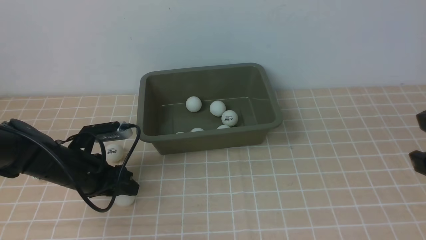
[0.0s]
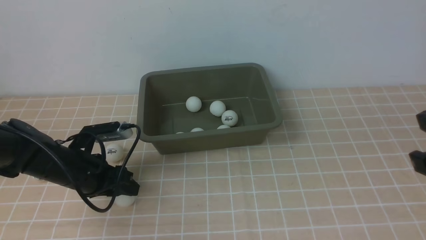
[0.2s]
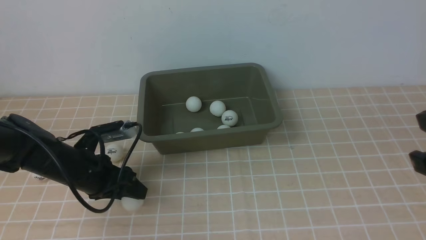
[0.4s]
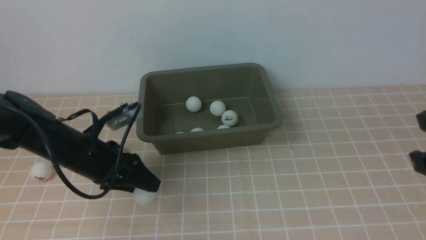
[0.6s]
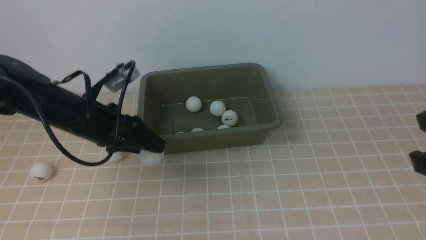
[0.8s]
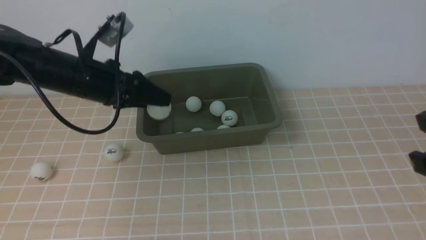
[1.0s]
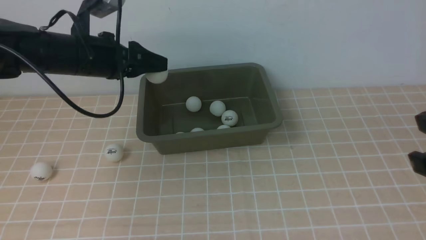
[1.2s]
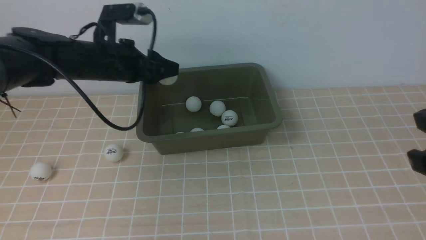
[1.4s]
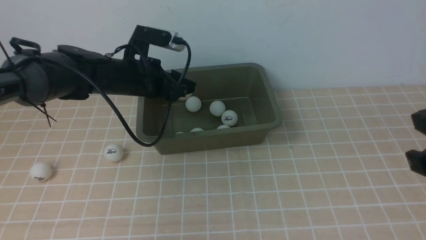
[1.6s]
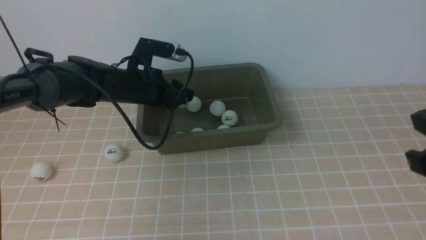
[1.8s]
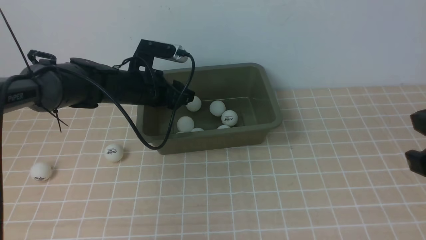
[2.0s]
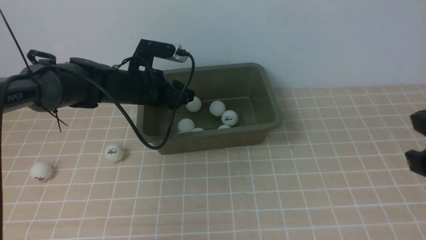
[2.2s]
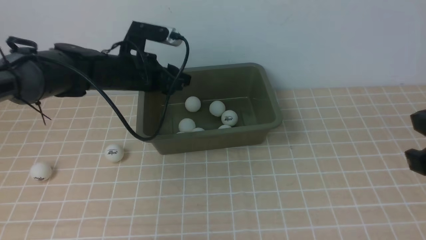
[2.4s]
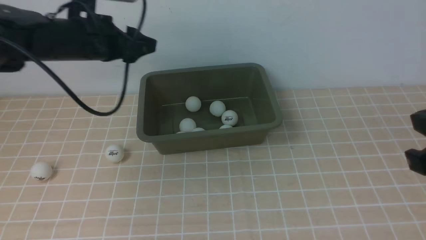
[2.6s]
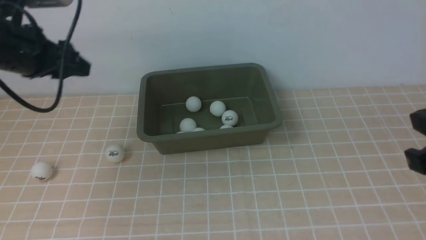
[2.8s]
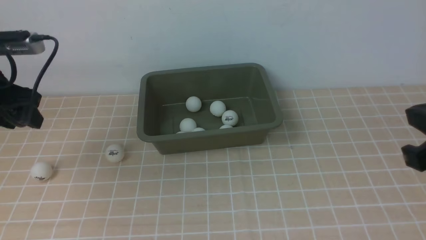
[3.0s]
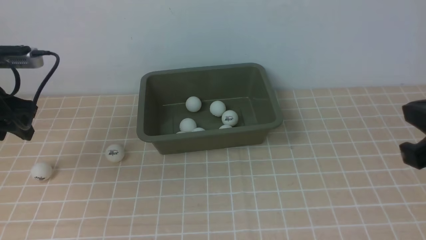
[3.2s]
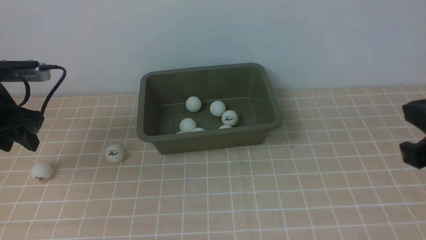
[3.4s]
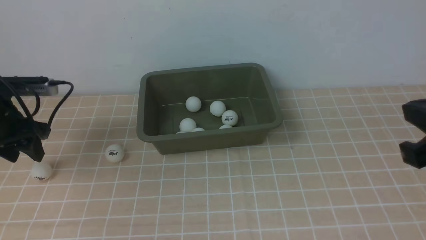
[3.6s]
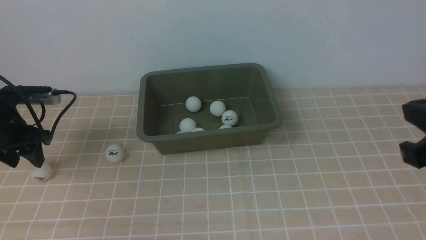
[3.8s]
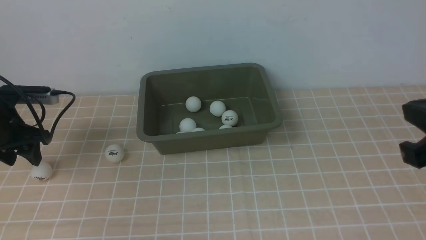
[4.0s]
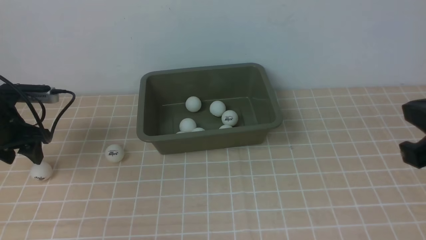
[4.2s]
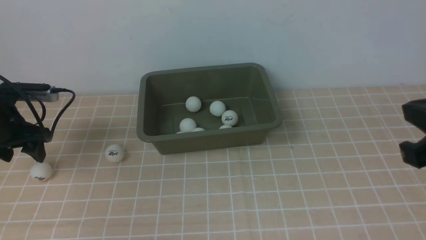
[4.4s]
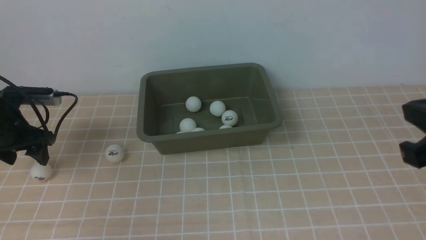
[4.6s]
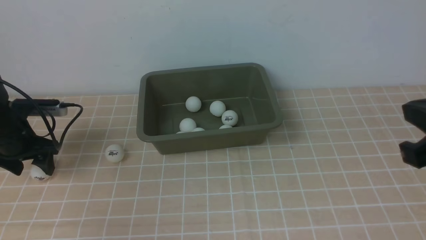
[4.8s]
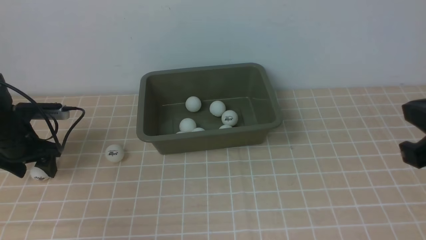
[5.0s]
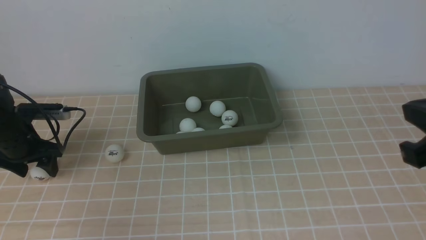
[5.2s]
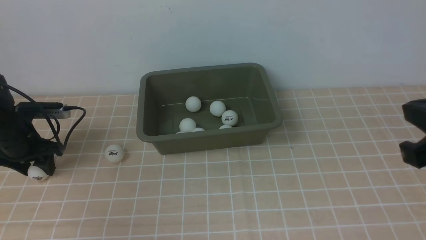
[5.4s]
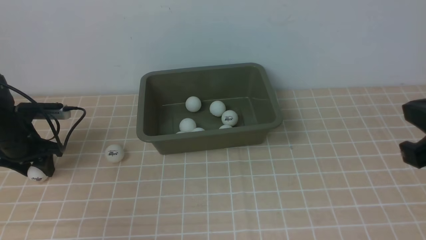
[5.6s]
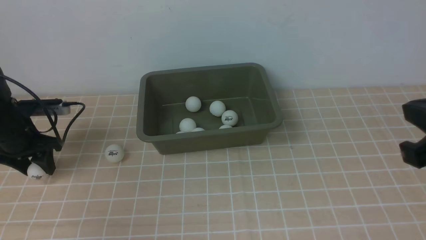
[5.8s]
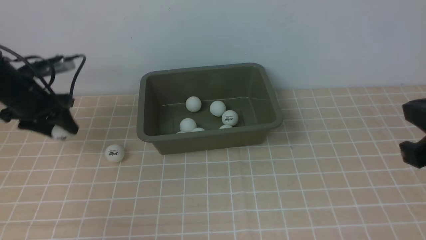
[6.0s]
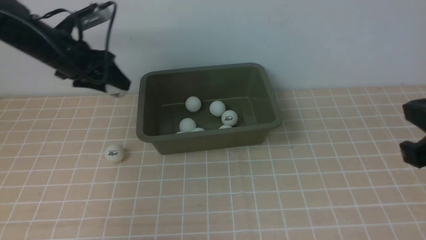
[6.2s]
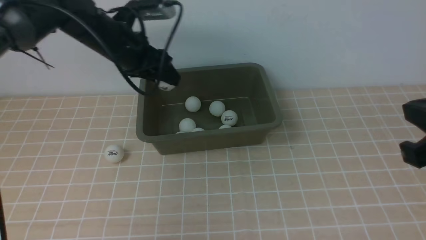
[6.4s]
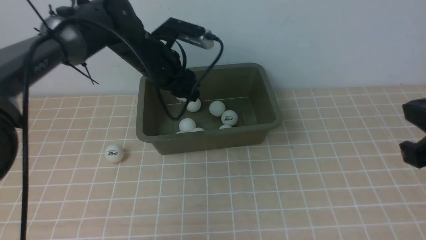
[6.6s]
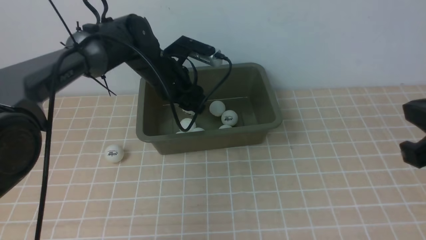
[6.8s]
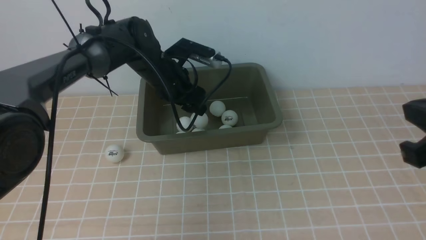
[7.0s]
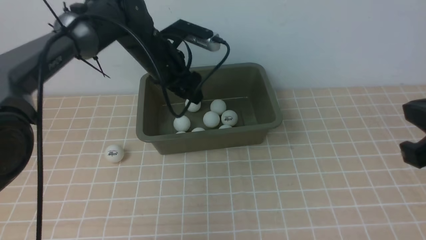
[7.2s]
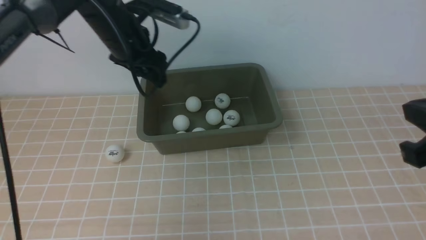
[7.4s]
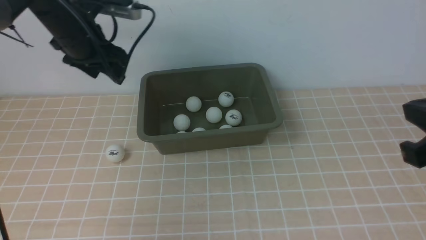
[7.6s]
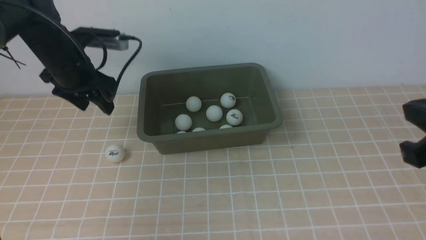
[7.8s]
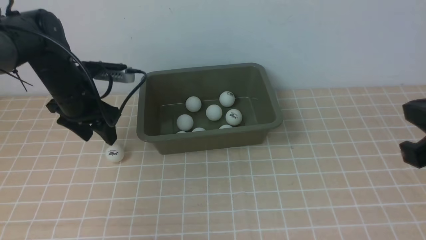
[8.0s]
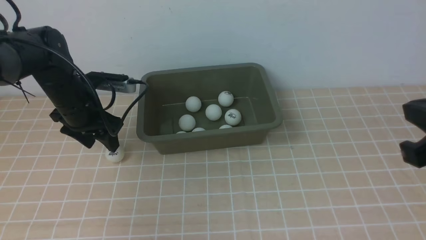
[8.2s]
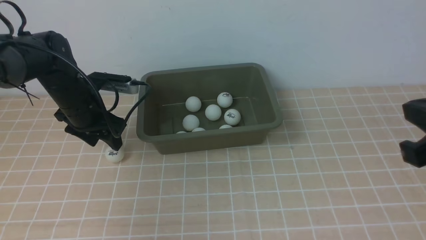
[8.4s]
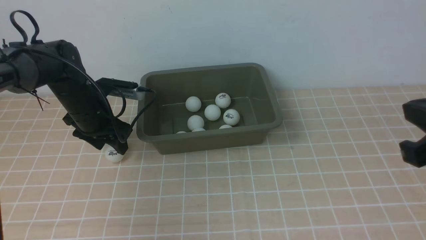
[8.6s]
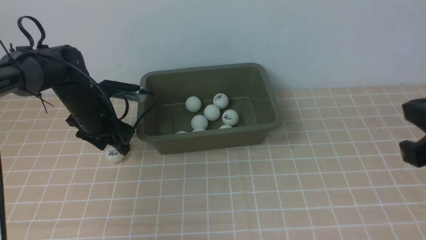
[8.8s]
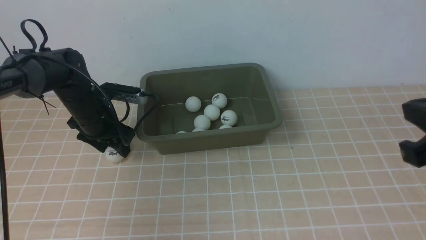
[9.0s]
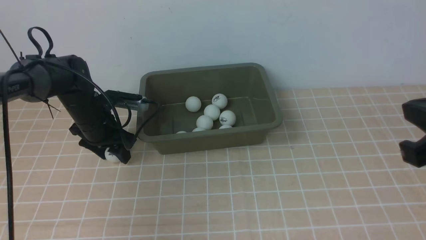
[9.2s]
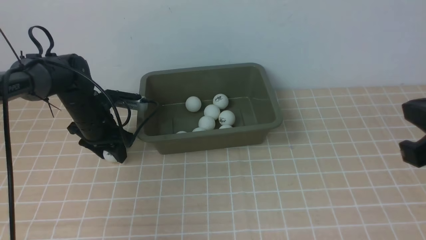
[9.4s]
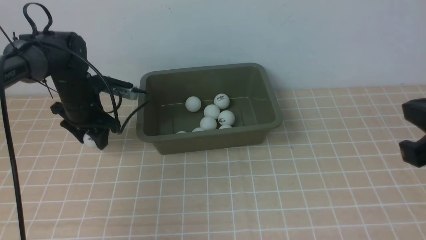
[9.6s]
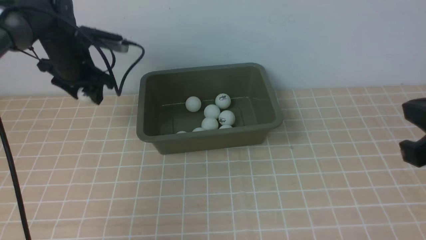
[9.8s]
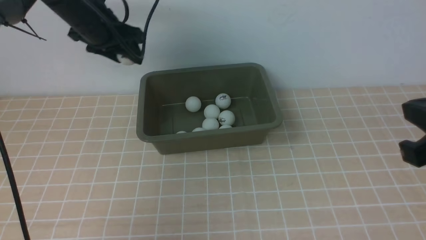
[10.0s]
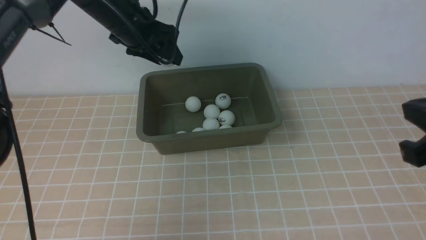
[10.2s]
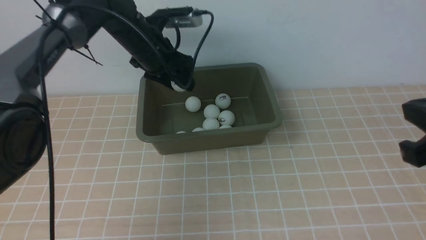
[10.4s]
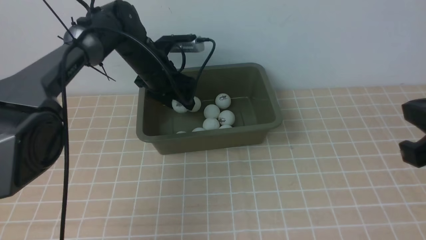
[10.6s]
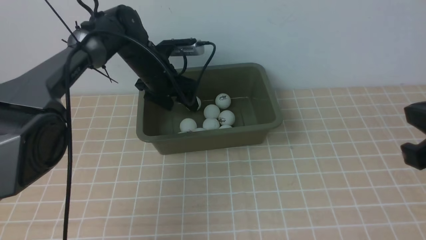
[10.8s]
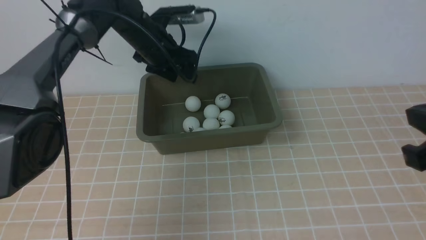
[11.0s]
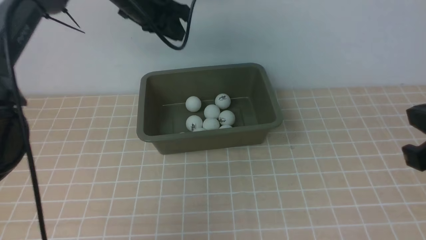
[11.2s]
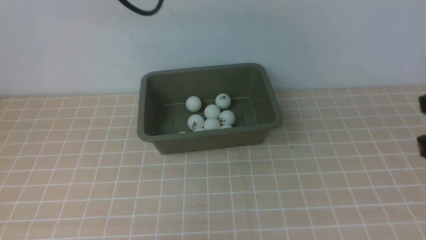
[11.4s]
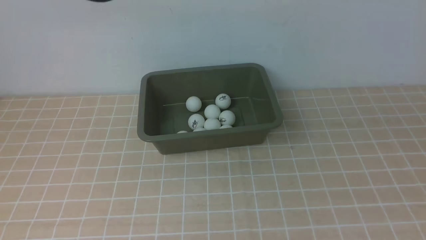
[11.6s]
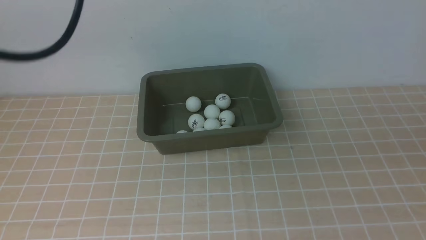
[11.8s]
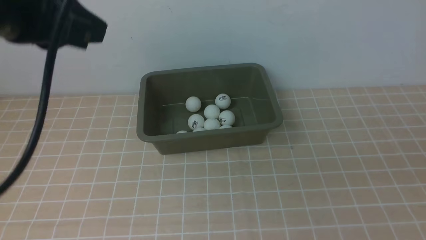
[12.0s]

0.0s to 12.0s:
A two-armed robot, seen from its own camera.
Step, 0.6s to 2.4s: use the left arm to put the table tennis ball into the box.
Step, 2.6s to 6.0s: use the left arm to clamp the table tennis ball closest to it.
Step, 6.2s to 7.4s: use the left arm to put the table tennis ball into the box.
Step, 7.6s to 9.6s: use the left arm to clamp the table tennis ball closest to it.
Step, 9.8s to 11.0s: use the left arm to put the table tennis ball into the box.
0.0s to 1.6s: The left gripper heads forward, upward and to the right, covering approximately 15 cm.
1.6s to 3.0s: The left gripper travels to the left, backward and upward by approximately 15 cm.
3.0s to 4.4s: The left gripper is displaced downward and to the left by approximately 10 cm.
4.4s to 6.0s: The grippers stay close to where they were, moving slightly.
6.0s to 7.6s: The left gripper goes some 15 cm to the right and upward.
7.6s to 9.0s: The left gripper shifts about 15 cm downward.
9.0s to 10.4s: The left gripper shifts about 15 cm upward, to the right and forward.
10.4s to 12.0s: The right gripper goes roughly 10 cm backward and to the right. The left gripper moves backward and upward, about 30 cm, and closes its fingers.

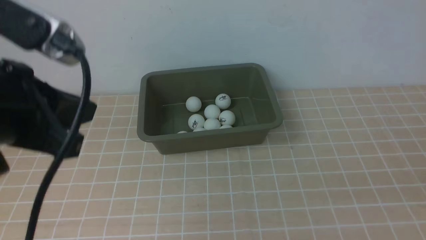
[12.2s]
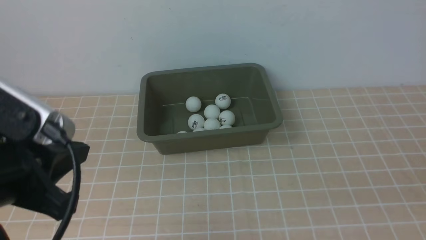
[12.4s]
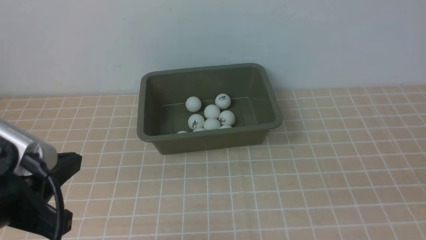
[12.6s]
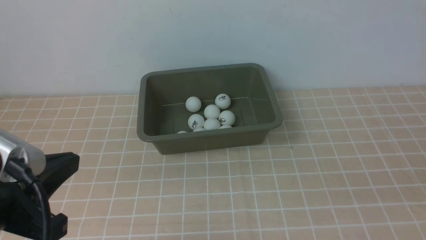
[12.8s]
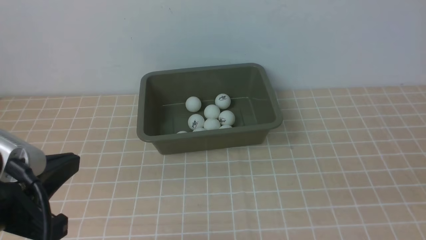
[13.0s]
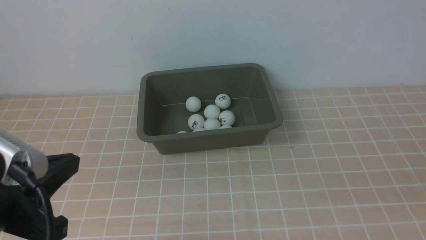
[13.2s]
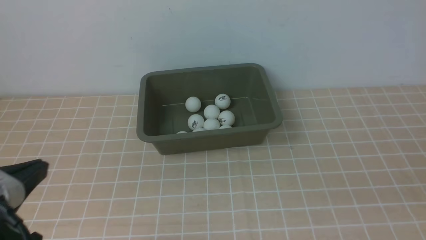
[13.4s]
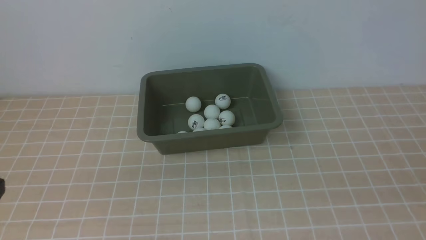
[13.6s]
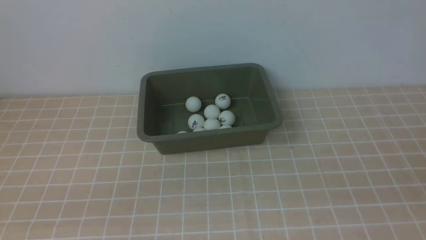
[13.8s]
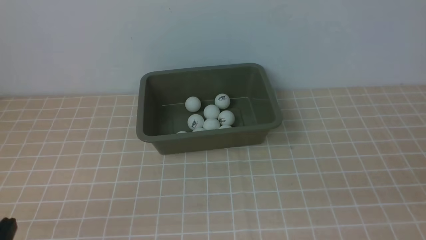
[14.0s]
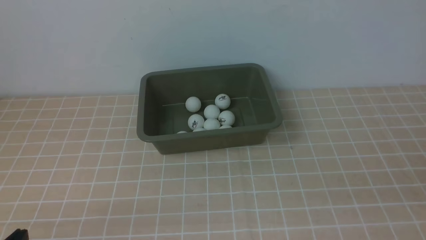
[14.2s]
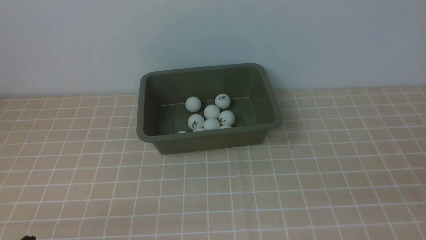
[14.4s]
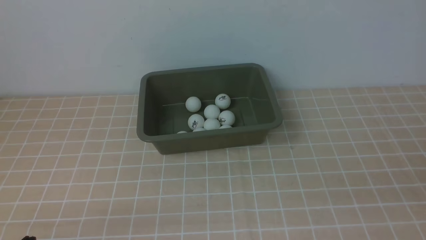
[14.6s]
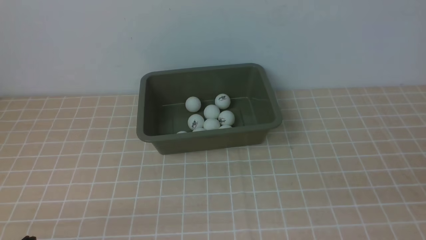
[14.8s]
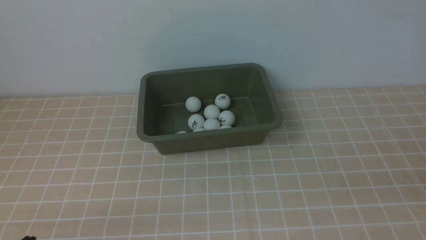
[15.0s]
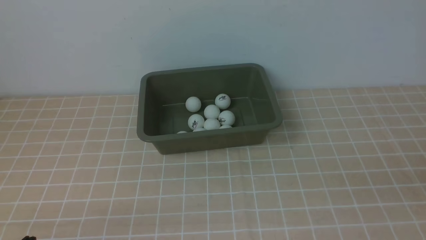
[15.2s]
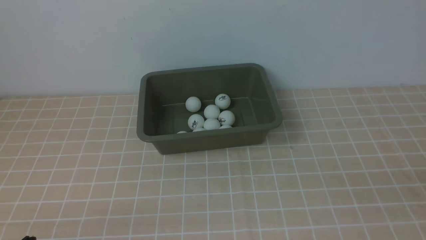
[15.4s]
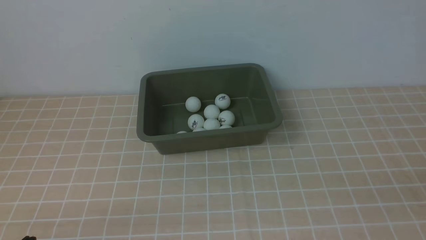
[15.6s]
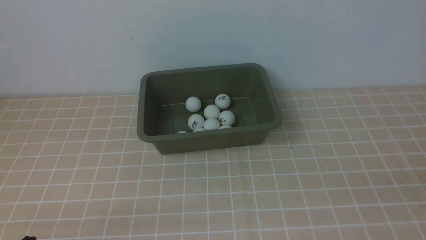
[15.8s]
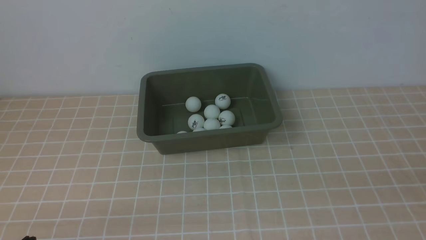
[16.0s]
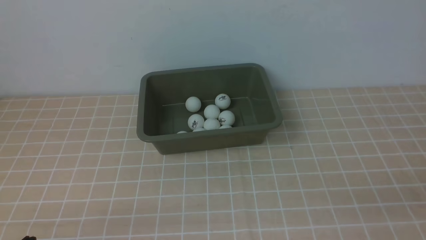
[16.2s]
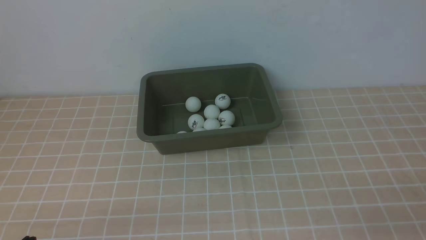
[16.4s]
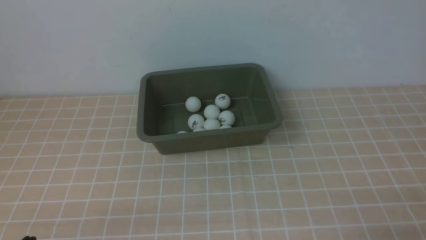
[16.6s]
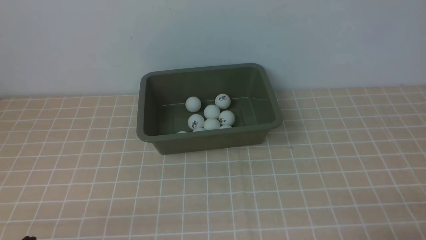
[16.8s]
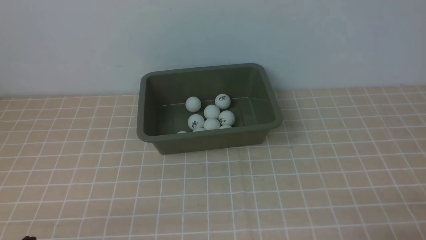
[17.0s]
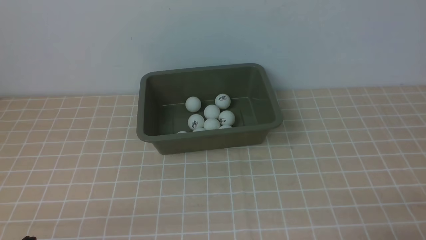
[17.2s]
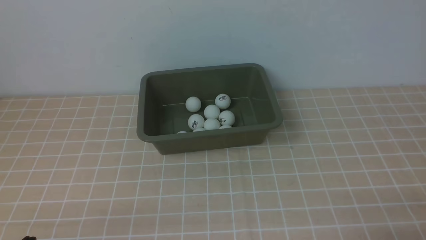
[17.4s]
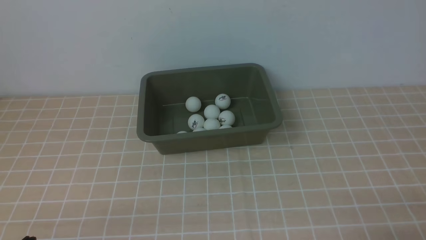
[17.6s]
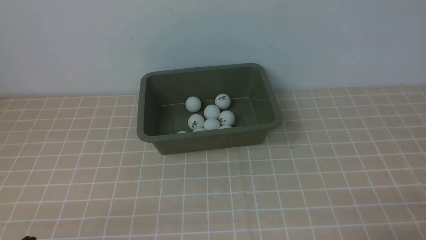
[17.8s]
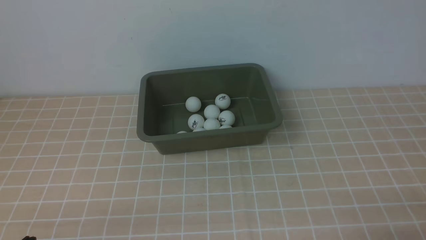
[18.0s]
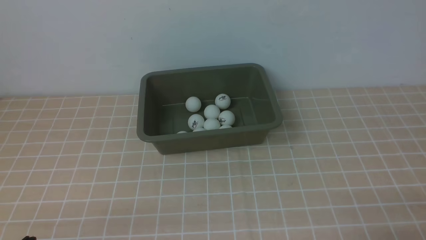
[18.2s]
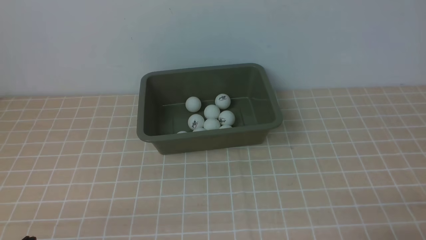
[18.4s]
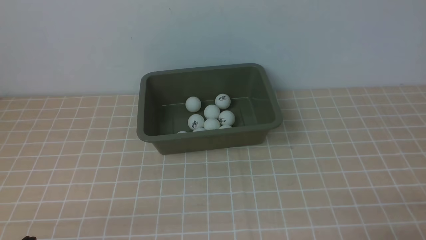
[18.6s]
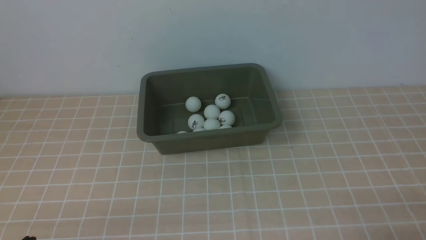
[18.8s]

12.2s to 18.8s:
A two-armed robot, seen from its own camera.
12.2s to 13.8s: The left gripper moves downward and backward, some 20 cm.
17.2s to 18.8s: Both grippers stay put.
